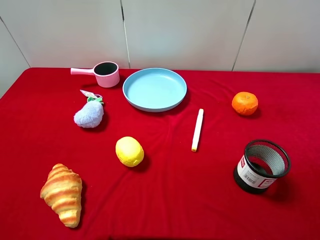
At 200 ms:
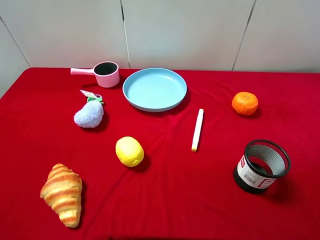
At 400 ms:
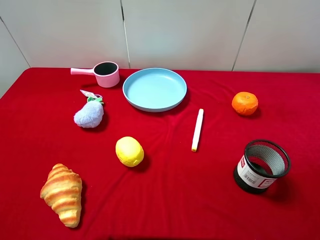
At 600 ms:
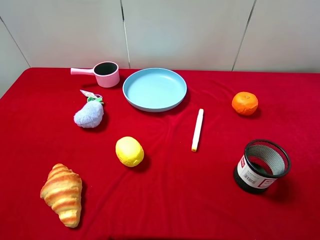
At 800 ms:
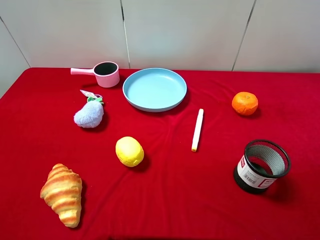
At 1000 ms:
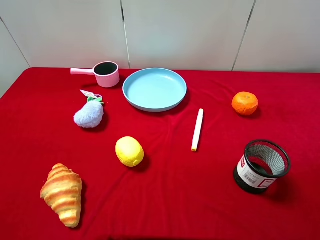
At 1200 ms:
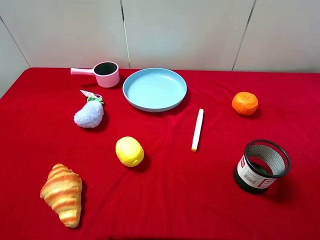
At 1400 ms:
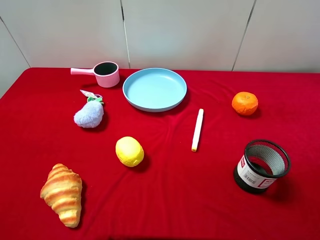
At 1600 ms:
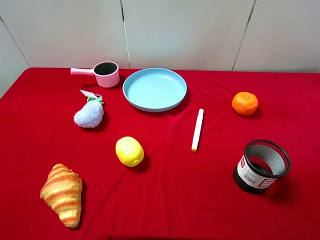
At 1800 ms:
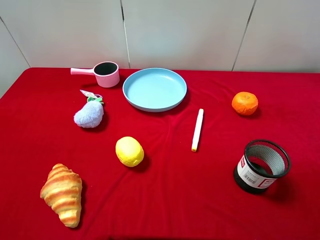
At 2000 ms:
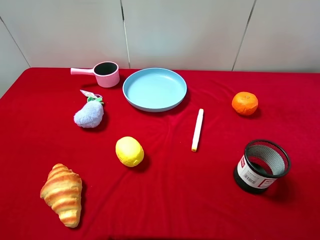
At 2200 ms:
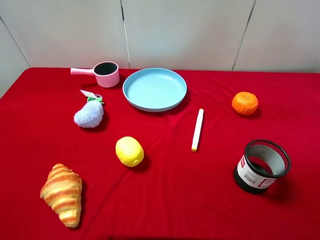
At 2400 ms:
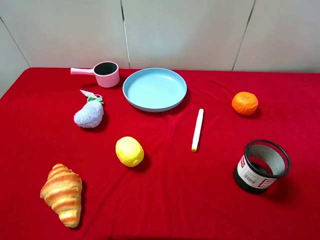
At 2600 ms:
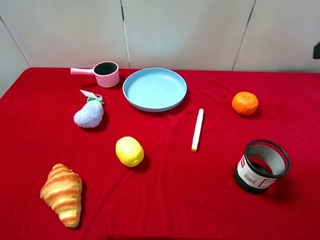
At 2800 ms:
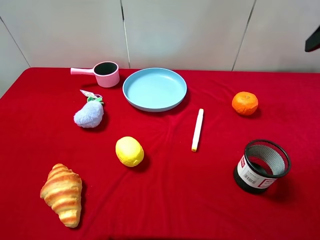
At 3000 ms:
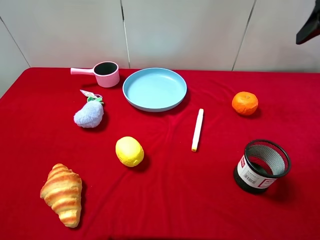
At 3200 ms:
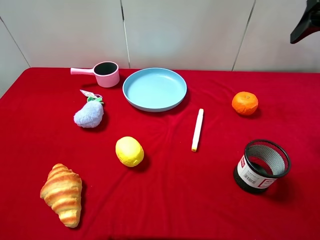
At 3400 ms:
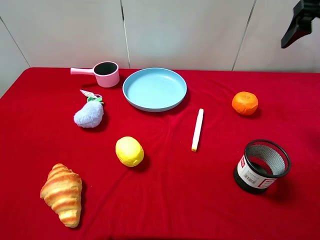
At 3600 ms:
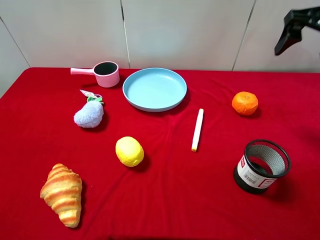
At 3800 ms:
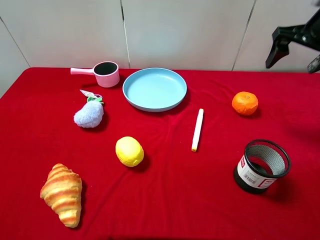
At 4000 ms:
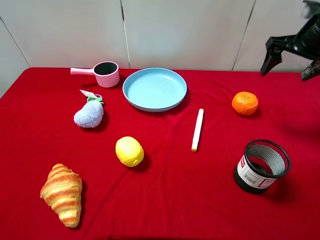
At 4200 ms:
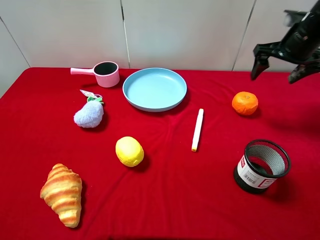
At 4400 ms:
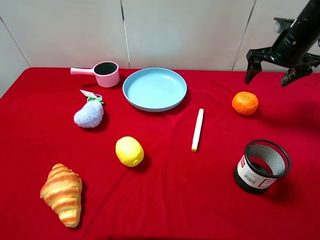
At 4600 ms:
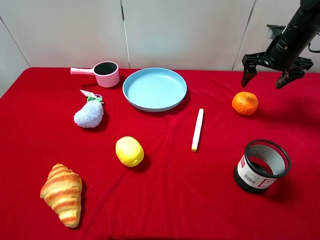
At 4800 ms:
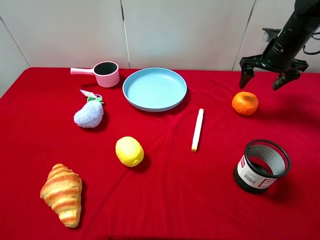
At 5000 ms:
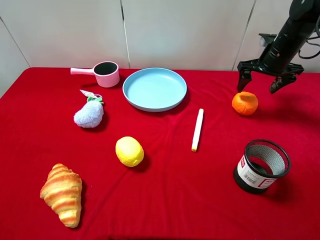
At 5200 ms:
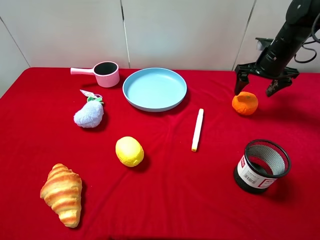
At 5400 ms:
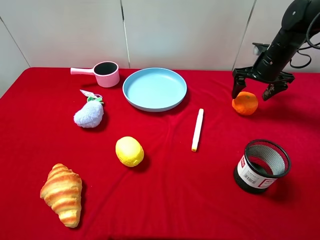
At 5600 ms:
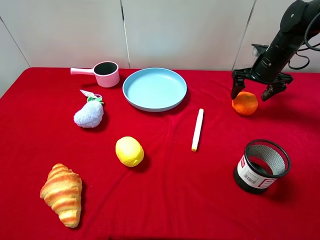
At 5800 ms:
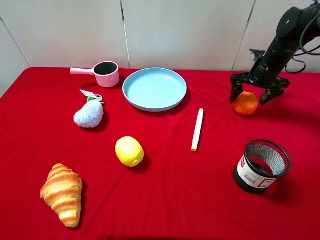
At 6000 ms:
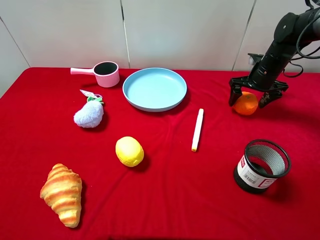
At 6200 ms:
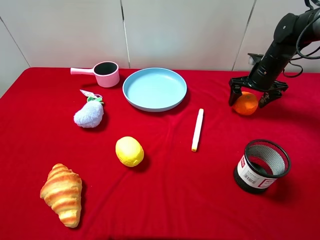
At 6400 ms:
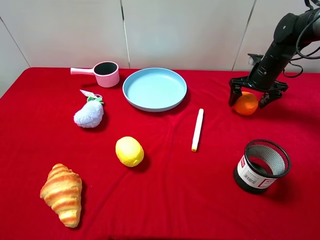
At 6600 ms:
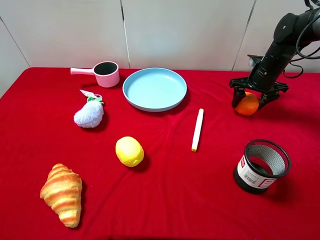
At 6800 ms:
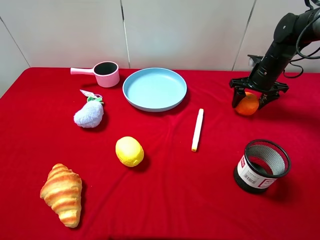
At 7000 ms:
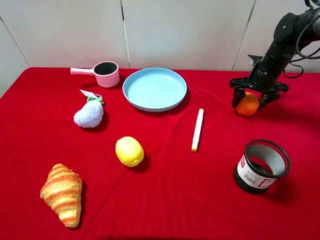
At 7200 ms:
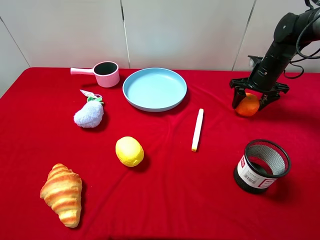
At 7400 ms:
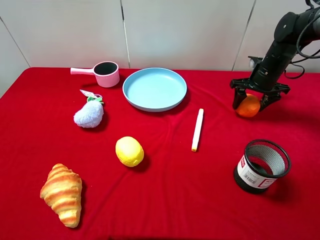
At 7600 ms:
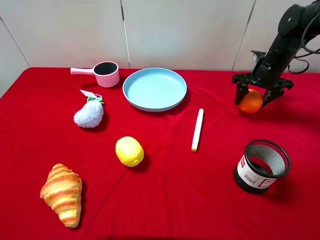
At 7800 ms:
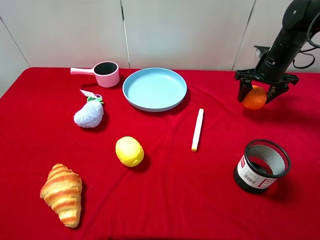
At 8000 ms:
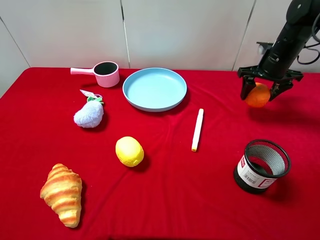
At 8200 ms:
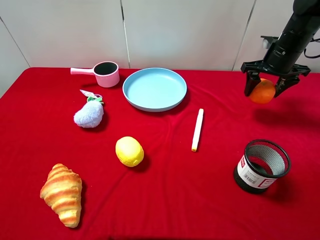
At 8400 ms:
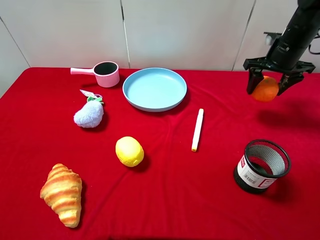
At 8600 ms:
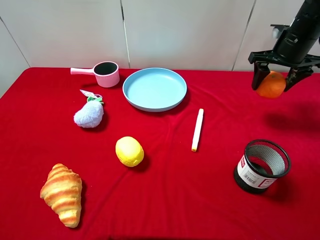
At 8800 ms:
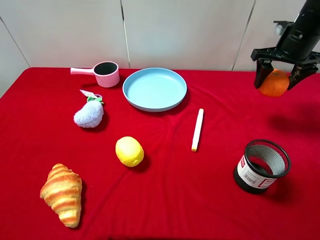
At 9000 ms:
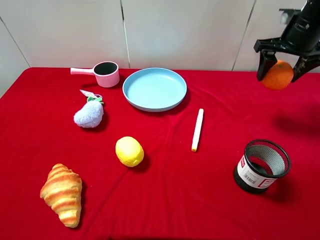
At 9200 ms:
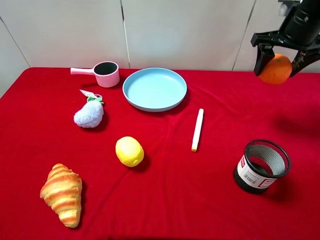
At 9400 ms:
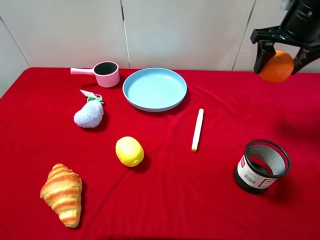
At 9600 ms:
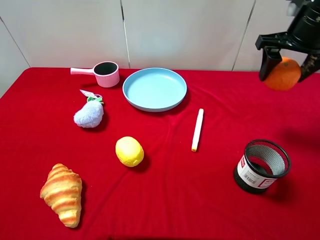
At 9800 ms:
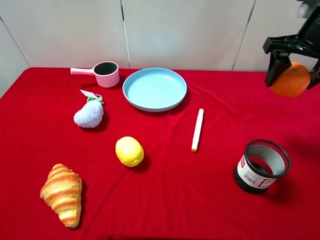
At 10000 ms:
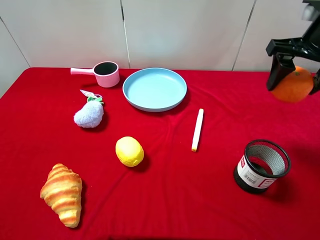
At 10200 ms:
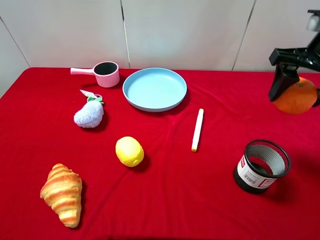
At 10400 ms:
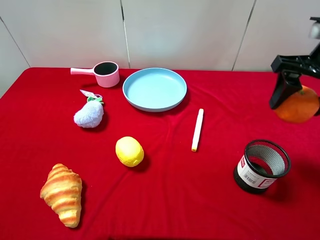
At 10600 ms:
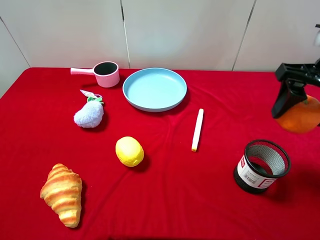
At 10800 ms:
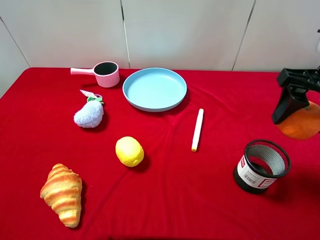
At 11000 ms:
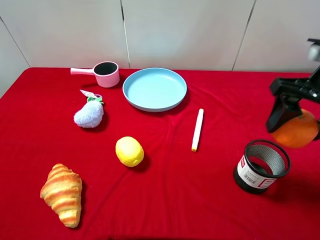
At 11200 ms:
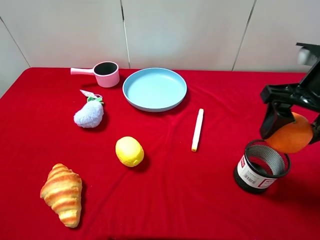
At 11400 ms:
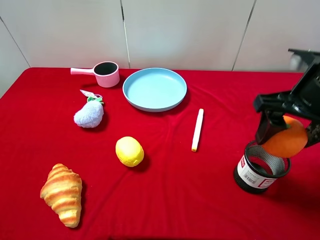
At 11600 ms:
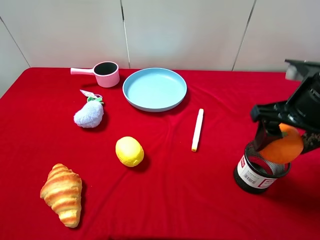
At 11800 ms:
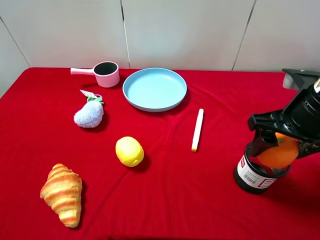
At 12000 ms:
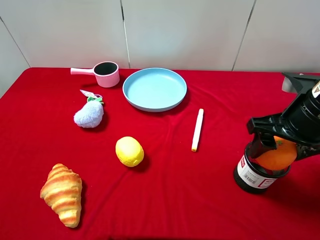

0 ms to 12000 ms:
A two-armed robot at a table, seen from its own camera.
Task of the whole recording: pick up an item with a gripper and place it in a random container on the desktop.
1600 ms to 3000 ms: The right gripper shifts some 25 cm forward.
3000 ms to 4400 ms: The right gripper heads downward and forward, covering some 20 cm.
4400 ms to 6000 ms: The right gripper moves downward, approximately 10 cm.
6000 ms to 7600 ms: The right gripper closes up.
7600 ms to 9000 ms: The right gripper is displaced upward by approximately 10 cm.
9000 ms to 10400 ms: The right gripper goes some 15 cm backward.
10400 ms to 12000 ms: The right gripper is displaced downward and backward by roughly 10 cm.

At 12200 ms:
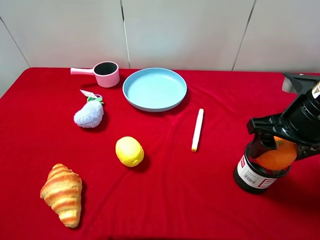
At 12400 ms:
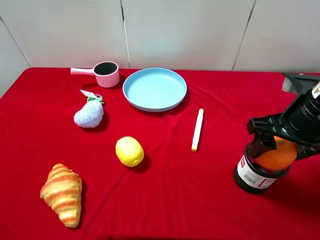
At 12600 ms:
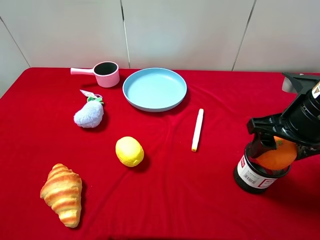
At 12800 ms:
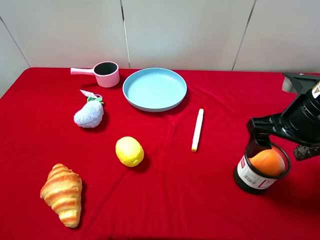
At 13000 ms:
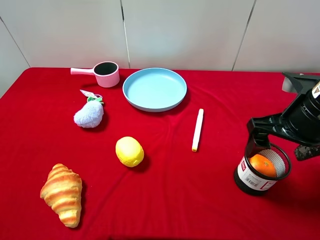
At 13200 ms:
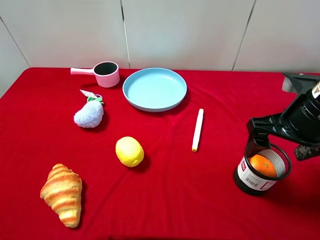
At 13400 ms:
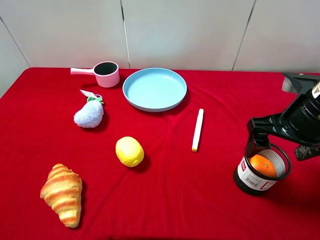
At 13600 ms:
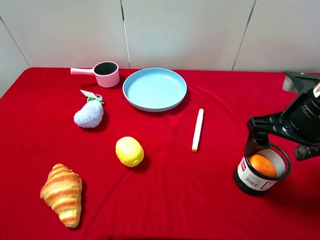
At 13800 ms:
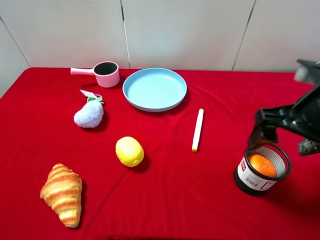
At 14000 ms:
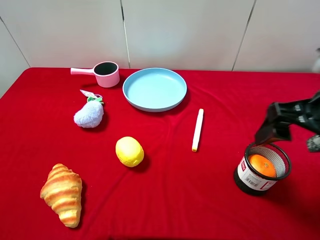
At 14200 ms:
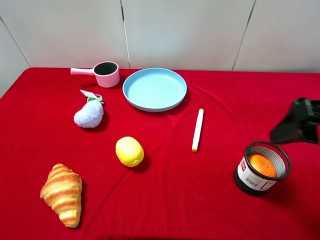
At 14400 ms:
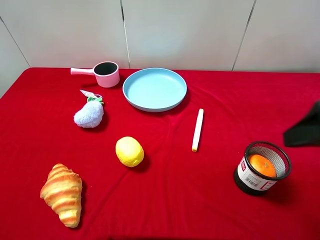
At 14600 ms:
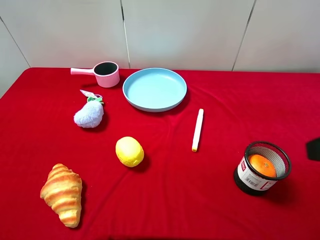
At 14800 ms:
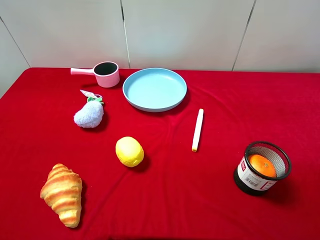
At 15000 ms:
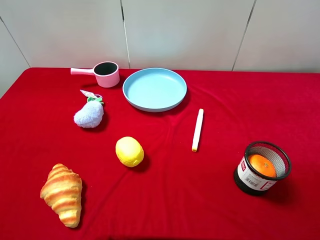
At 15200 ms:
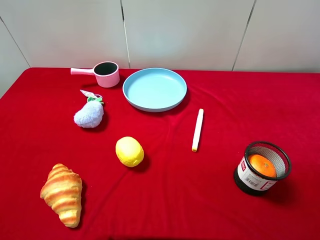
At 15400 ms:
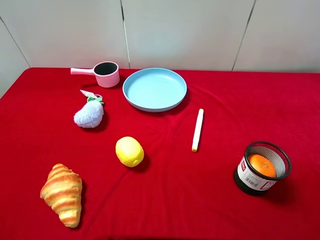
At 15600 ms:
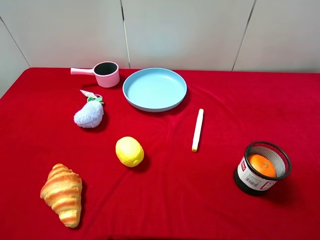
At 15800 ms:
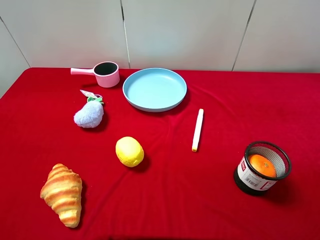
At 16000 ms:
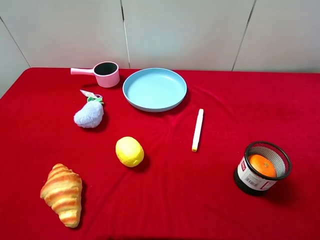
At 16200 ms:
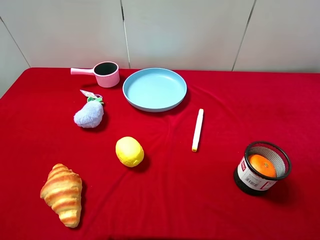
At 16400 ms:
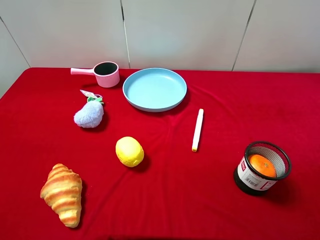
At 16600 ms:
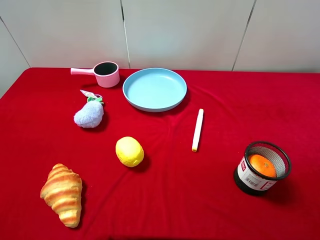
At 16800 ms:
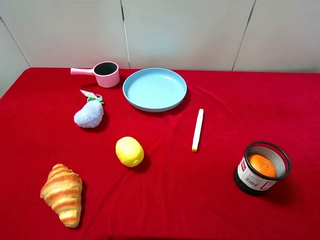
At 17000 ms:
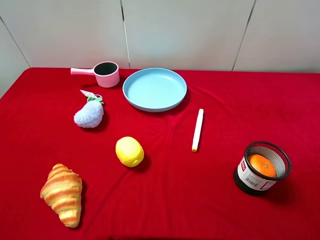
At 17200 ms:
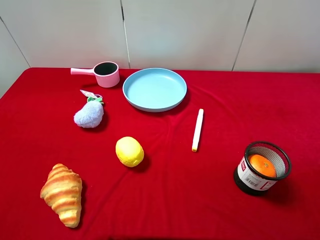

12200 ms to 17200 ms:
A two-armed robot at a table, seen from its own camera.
Task of the whole recording: pick up an item with a gripper and place it in a random container on the desktop.
12200 ms to 13800 ms: The right gripper opens up.
13800 ms to 15600 ms: The right gripper goes some 15 cm backward, upward and to the right.

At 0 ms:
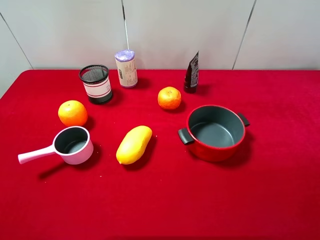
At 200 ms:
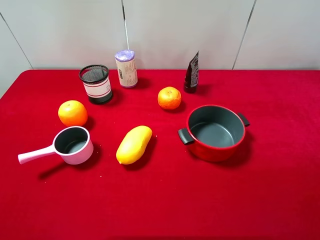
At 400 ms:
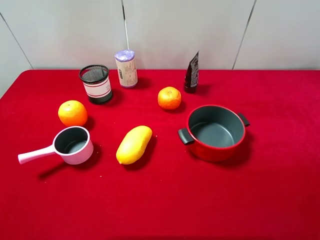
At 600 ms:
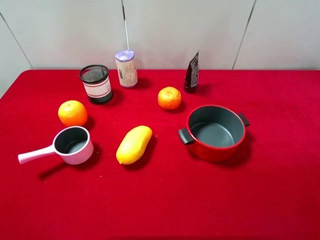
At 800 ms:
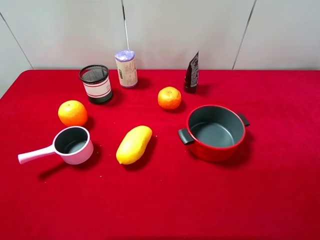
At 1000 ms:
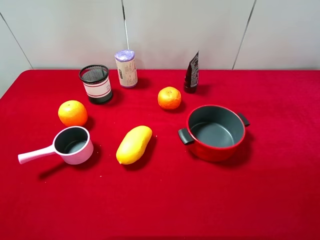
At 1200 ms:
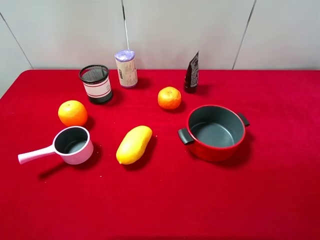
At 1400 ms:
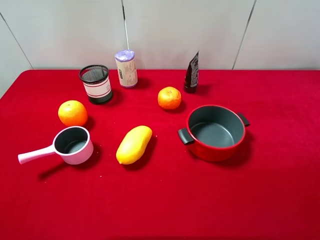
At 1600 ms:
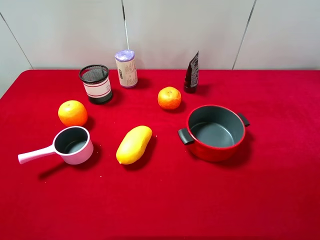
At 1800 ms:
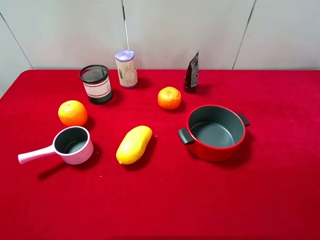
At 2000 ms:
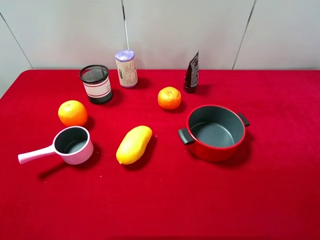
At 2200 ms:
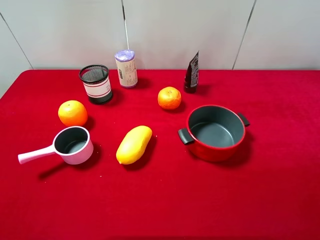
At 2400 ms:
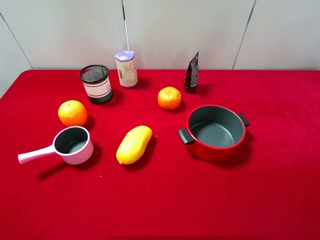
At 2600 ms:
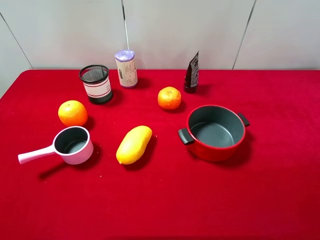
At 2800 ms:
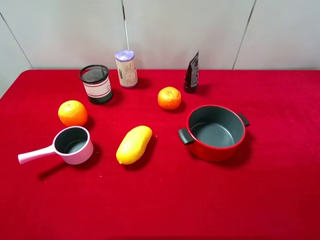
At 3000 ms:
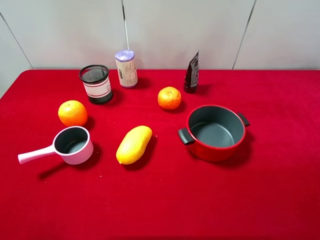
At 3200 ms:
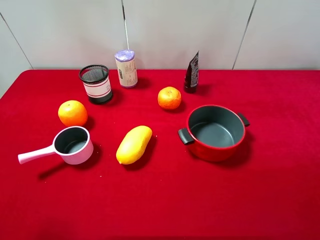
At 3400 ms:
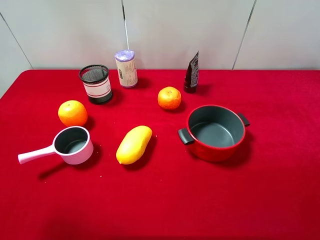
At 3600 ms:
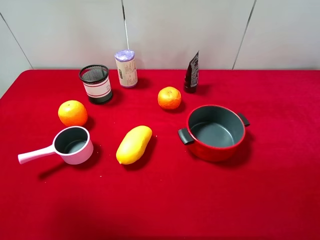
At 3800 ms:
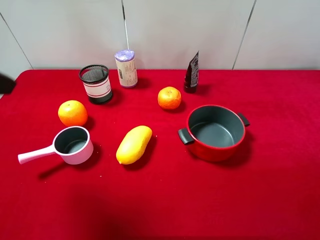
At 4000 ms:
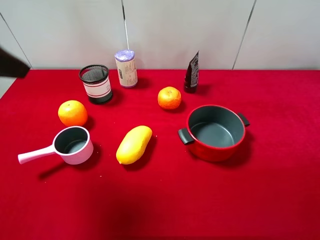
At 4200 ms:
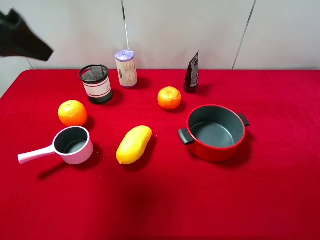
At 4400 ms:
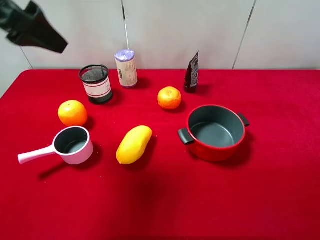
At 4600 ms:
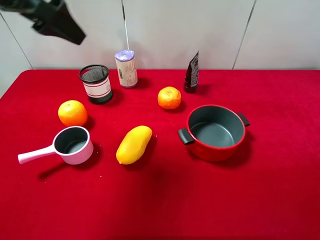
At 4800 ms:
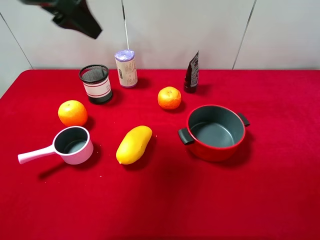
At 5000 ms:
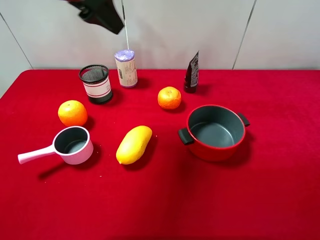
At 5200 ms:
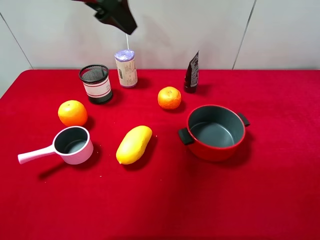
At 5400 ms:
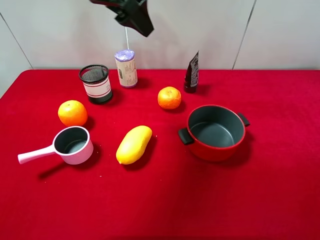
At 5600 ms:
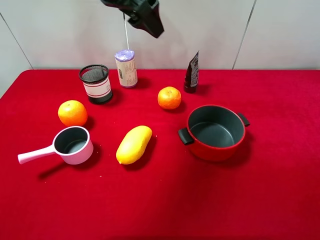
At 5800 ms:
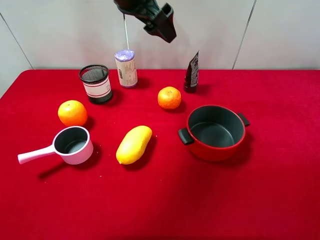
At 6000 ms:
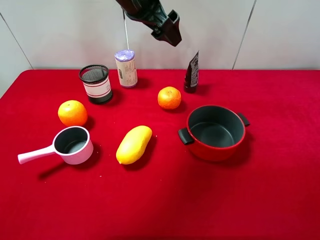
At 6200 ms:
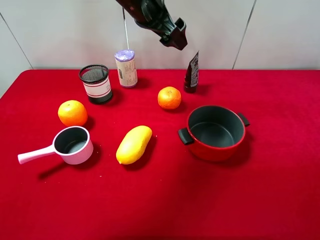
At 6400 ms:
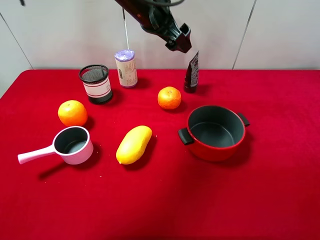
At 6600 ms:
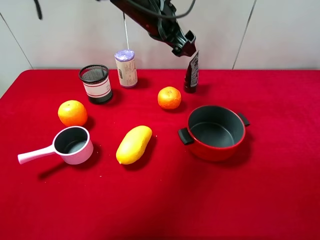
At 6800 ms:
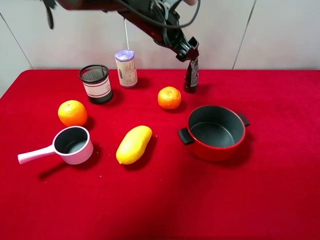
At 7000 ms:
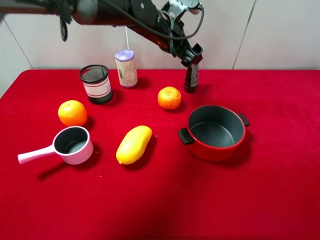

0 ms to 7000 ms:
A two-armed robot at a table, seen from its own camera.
Task of the whole recording: pick up an item with a gripper and place it in a random container on the desktop.
0 ms to 1400 ms: Both grippers stay put.
2800 ms to 4200 ms: The left gripper travels forward by about 20 cm.
4200 ms to 5600 ms: The left gripper heads to the right and forward, covering about 20 cm.
5600 ms to 7000 ms: The left gripper goes some 15 cm downward, to the right and forward.
